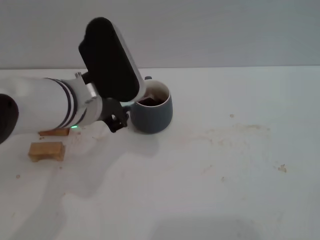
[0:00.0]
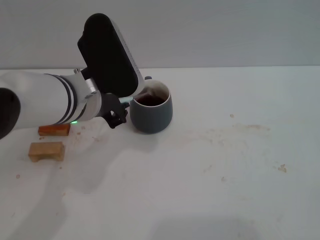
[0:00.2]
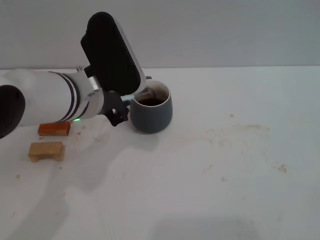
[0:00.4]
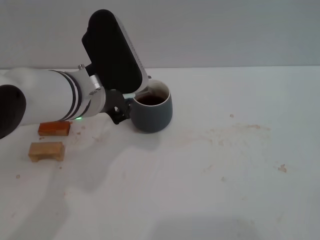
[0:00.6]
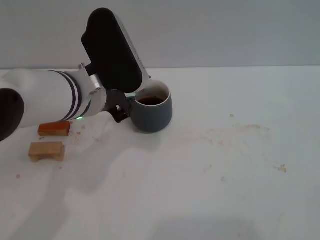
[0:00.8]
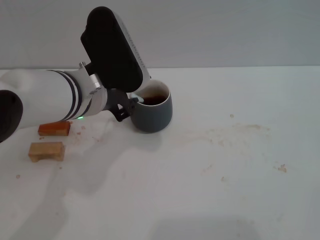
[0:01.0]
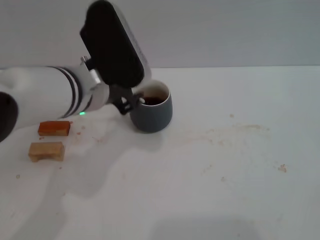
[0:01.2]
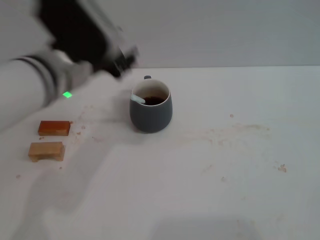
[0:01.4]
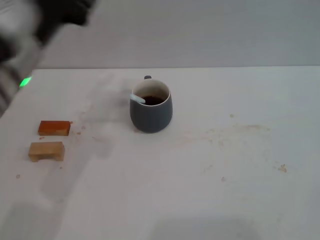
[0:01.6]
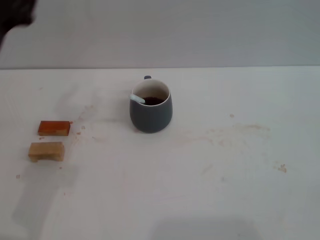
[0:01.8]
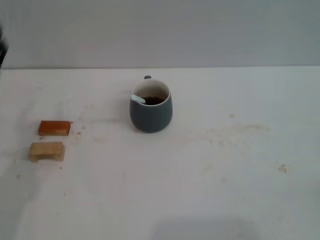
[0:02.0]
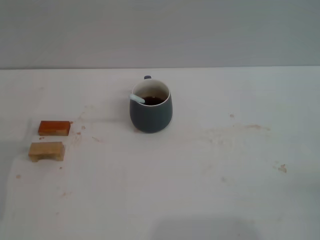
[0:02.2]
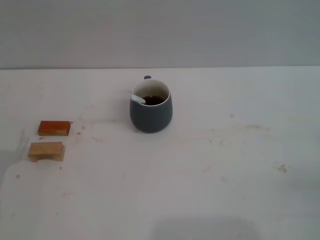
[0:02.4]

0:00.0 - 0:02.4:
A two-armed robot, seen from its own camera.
Task of the whole recording: Move the grey cup to the center, lift the blue spoon, stir it three times in the cup, and put the spoon into the cup.
0:00.0 - 0:01.2: The grippers move only a little.
0:01.2 - 0:02.4: The right gripper moves roughly 5 cm. The left gripper travels to the left, downward and backward by some 30 cm, and opens its fingers.

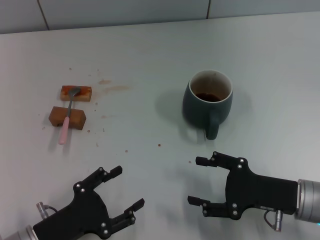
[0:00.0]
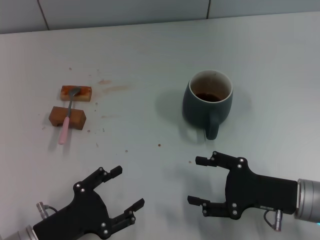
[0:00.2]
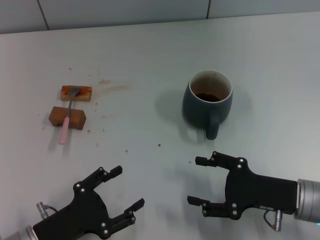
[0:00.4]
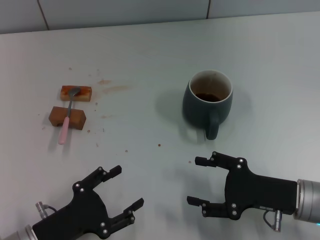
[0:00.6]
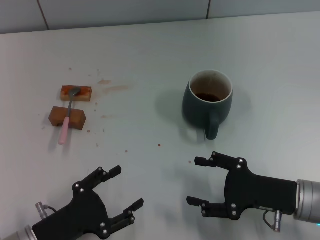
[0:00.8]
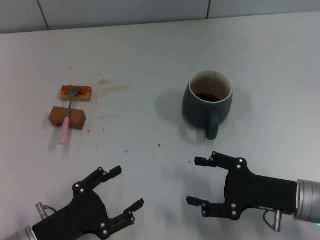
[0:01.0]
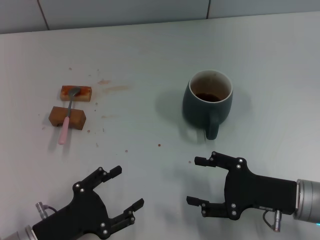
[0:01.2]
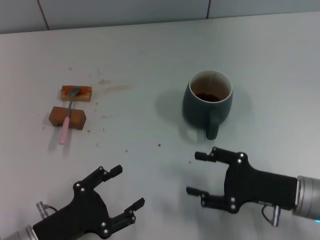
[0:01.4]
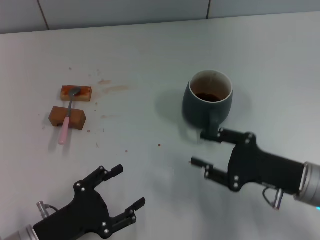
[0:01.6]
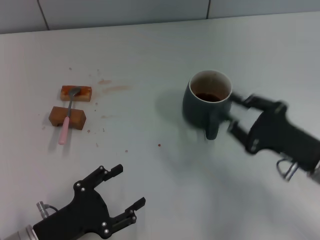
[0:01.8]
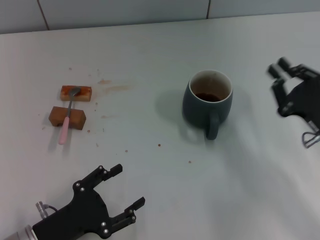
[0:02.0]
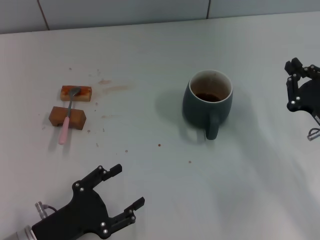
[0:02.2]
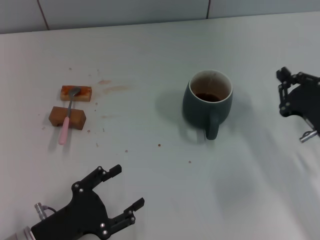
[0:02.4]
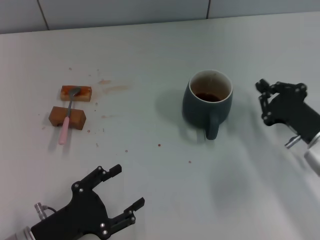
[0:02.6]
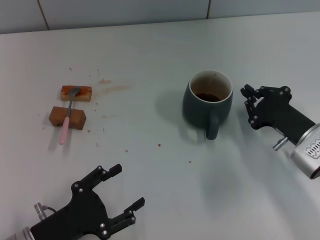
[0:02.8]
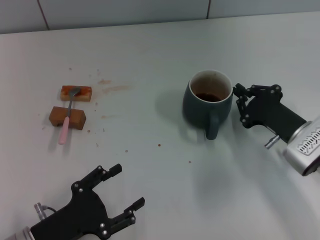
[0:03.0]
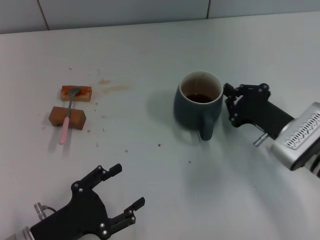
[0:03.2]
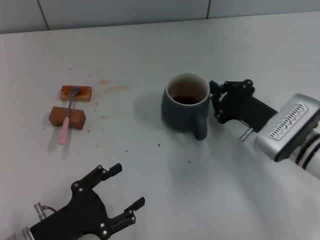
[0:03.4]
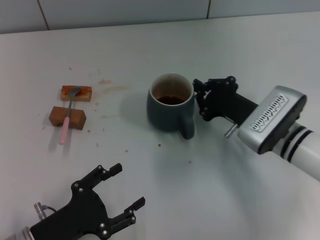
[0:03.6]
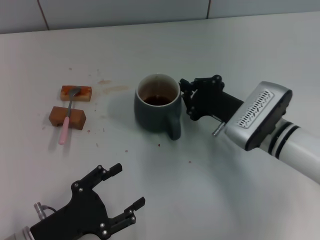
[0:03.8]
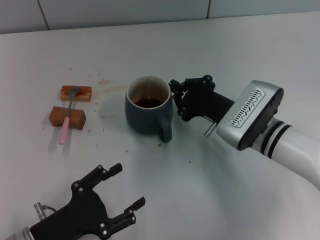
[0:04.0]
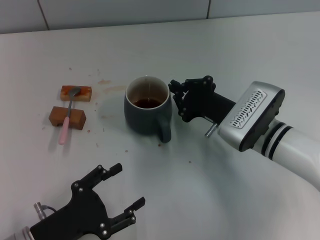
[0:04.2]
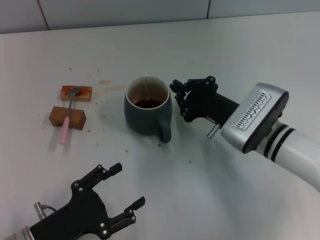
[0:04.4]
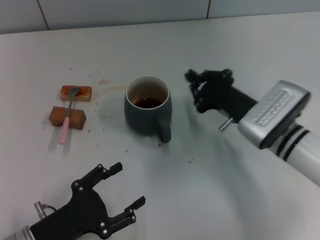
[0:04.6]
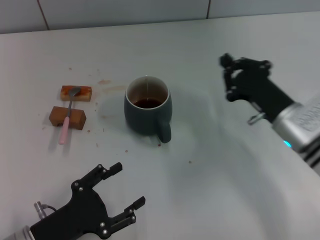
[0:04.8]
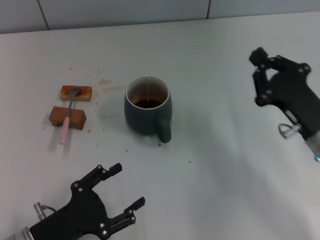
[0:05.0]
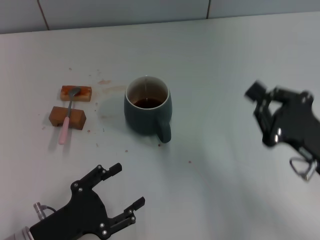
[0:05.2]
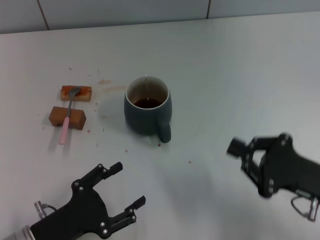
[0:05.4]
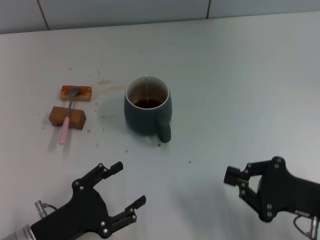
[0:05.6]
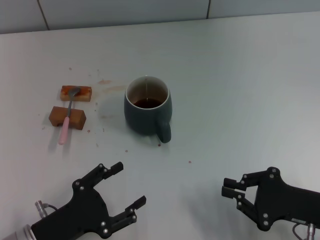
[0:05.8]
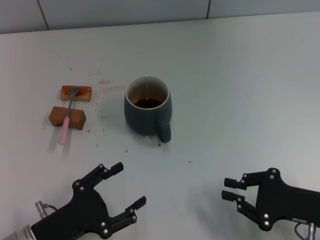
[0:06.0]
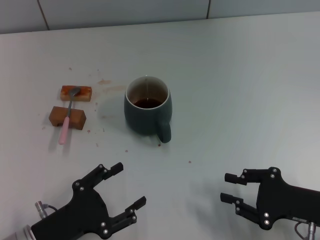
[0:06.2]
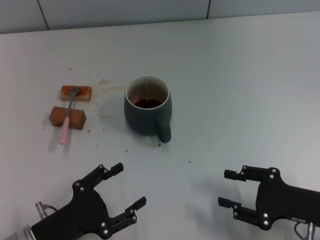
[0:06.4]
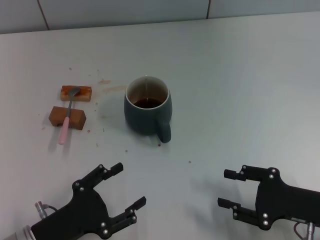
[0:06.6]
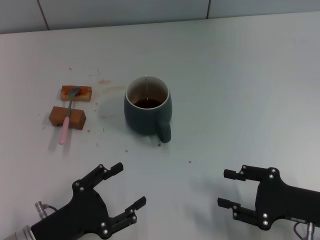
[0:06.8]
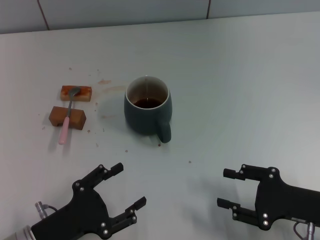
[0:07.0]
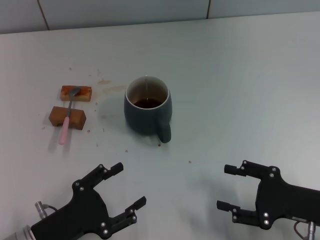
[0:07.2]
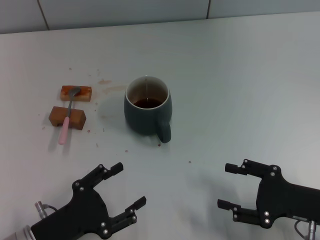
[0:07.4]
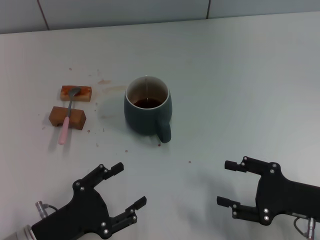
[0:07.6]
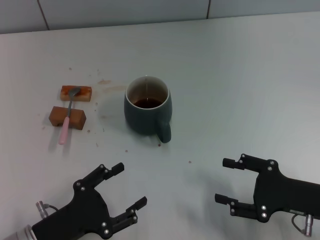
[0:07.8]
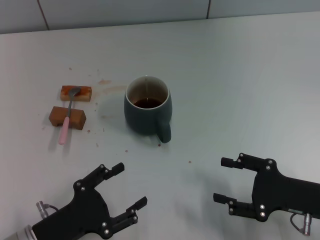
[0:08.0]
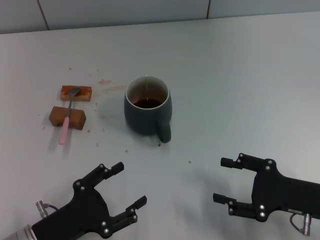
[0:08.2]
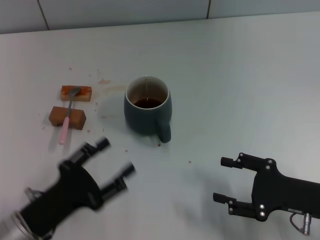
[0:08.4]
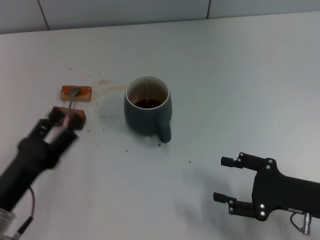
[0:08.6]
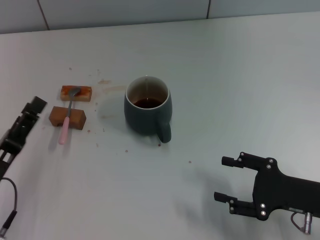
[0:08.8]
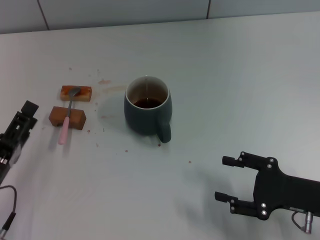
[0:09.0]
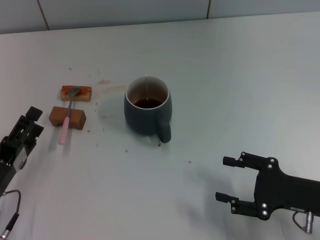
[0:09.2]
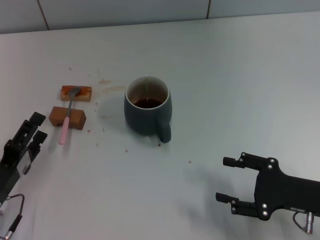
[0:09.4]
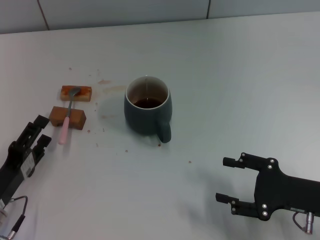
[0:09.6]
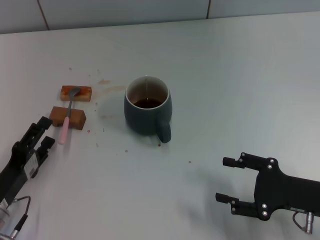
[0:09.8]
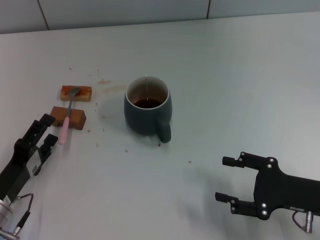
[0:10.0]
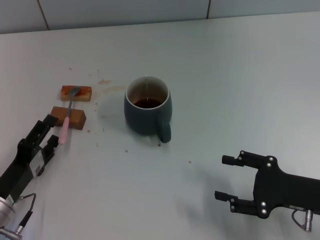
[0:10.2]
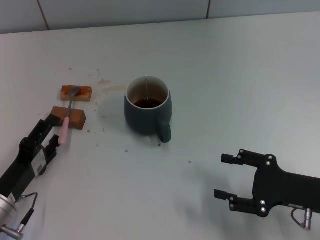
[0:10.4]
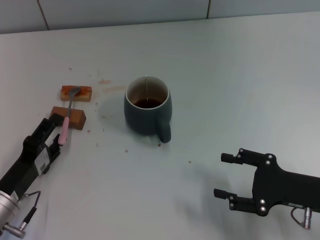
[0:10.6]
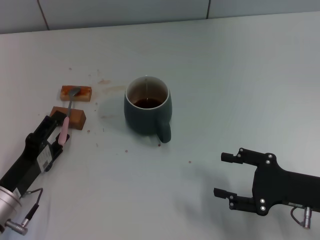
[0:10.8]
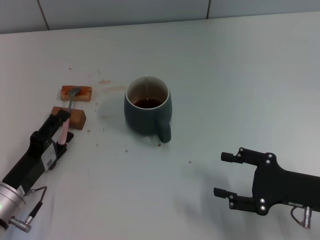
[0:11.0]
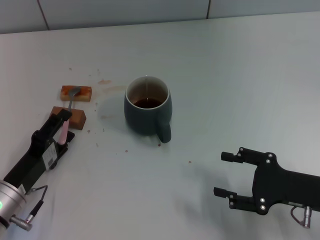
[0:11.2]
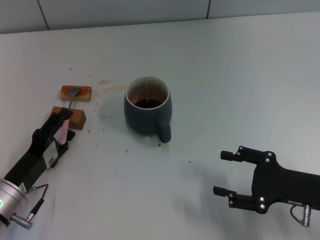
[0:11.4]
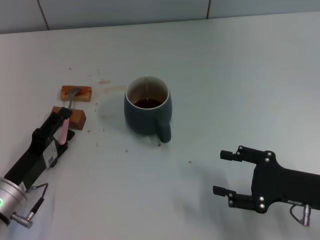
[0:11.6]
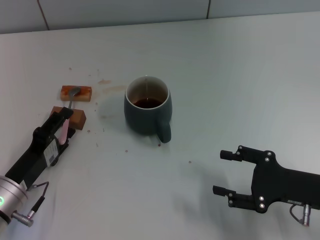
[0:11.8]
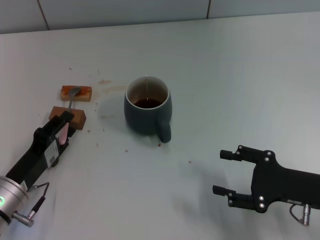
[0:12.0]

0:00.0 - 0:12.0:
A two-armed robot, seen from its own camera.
Task of the whole recording: Move the grey cup to the center, lift the pink spoon, stir it three times in the cup, and put the spoon into the cup.
Step, 0:00.0 - 0:05.0: Move the cup with coffee to the center of view with the right gripper.
0:00.0 - 0:01.6: There are only small adjustments of the grippers.
0:01.6 - 0:03.0: The right gripper moves forward, some 5 cm, and closes.
0:03.0 - 0:04.4: The right gripper shifts approximately 10 cm to the left.
0:04.4 - 0:06.0: The right gripper is displaced backward and to the right by approximately 15 cm.
0:06.0 - 0:07.6: The right gripper opens its fingers.
0:07.6 - 0:09.0: The left gripper moves to the left, approximately 5 cm.
0:10.4 - 0:12.0: There are only small adjustments of the grippers.

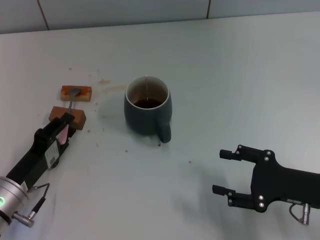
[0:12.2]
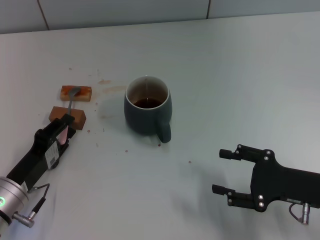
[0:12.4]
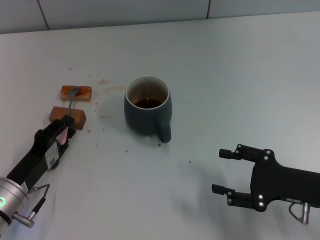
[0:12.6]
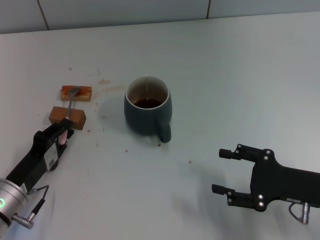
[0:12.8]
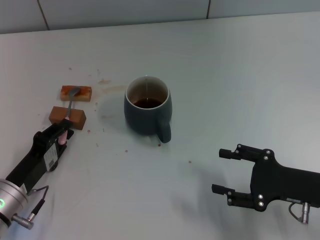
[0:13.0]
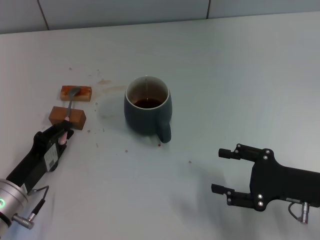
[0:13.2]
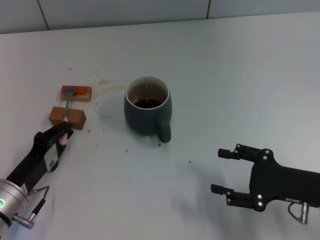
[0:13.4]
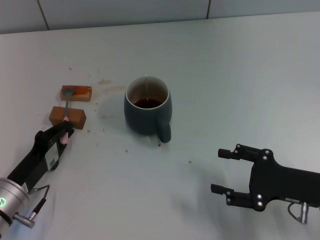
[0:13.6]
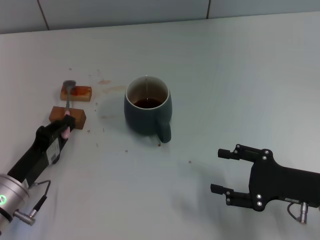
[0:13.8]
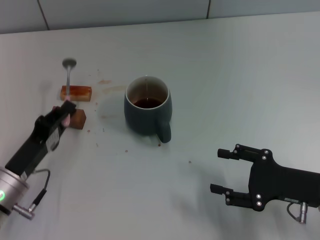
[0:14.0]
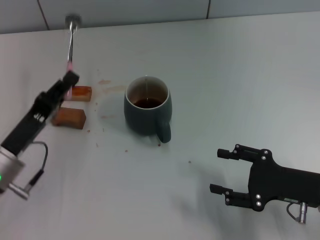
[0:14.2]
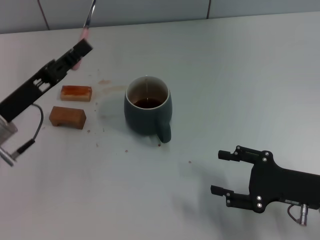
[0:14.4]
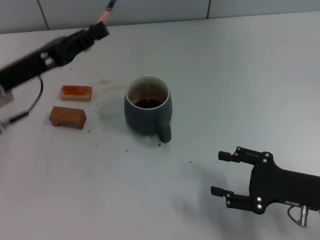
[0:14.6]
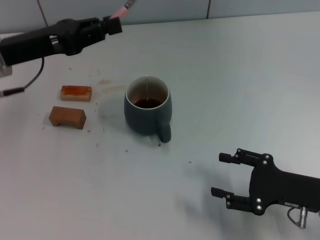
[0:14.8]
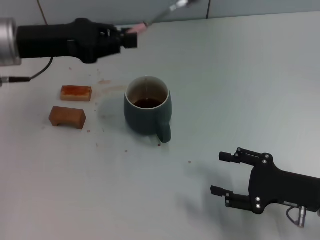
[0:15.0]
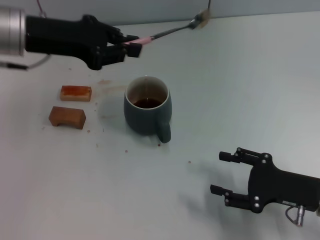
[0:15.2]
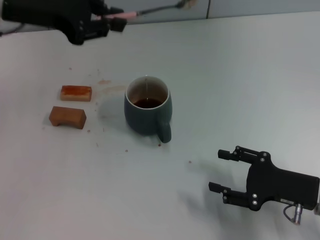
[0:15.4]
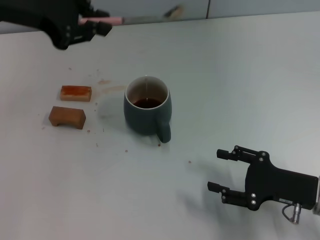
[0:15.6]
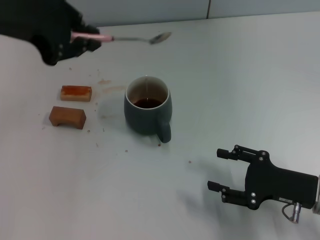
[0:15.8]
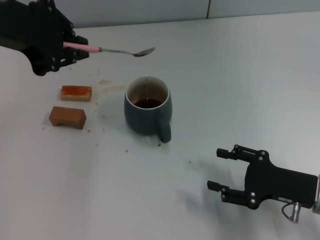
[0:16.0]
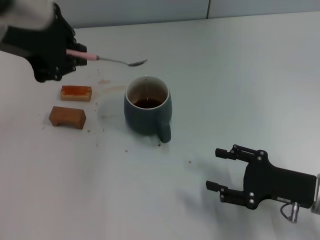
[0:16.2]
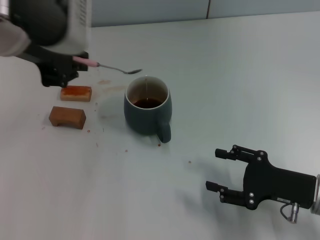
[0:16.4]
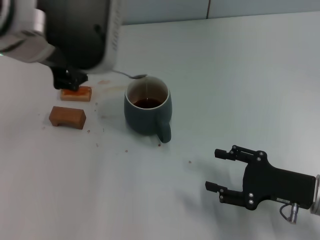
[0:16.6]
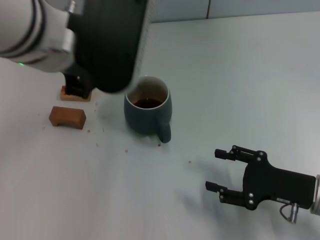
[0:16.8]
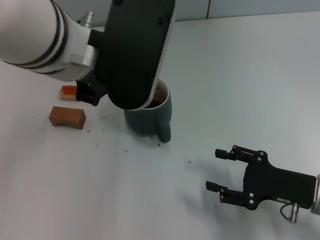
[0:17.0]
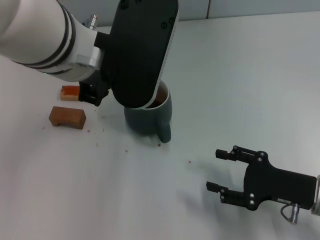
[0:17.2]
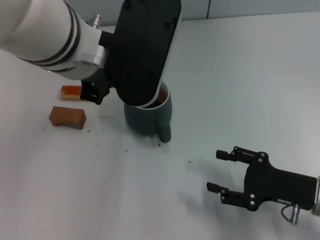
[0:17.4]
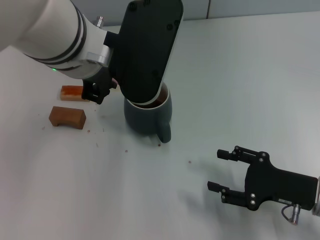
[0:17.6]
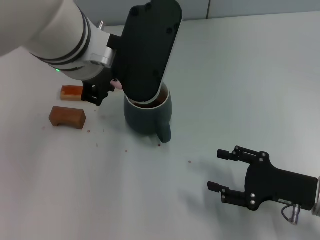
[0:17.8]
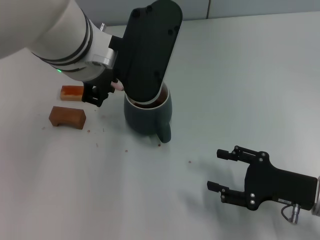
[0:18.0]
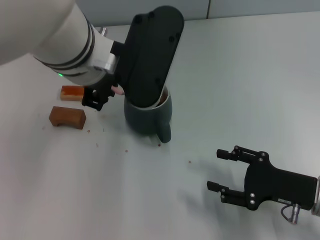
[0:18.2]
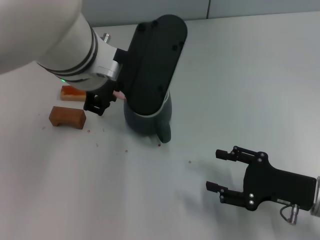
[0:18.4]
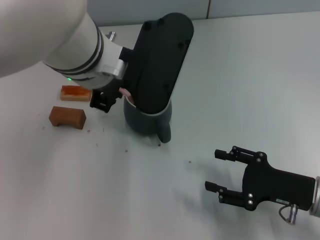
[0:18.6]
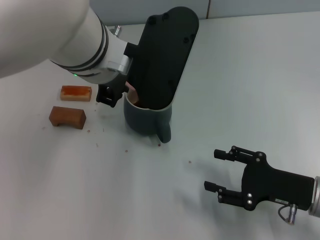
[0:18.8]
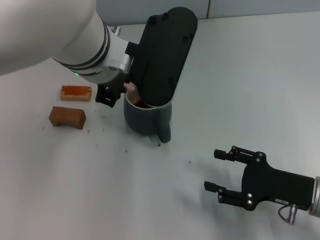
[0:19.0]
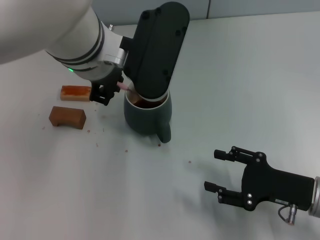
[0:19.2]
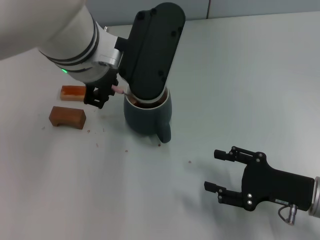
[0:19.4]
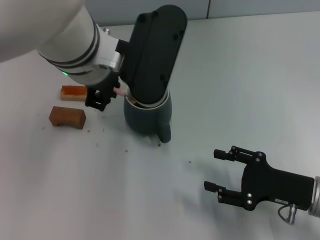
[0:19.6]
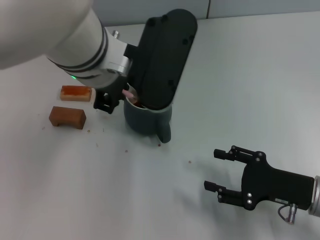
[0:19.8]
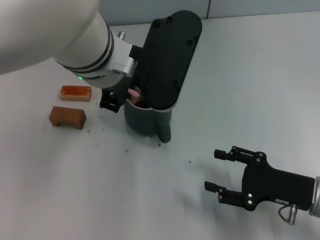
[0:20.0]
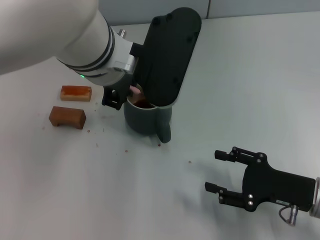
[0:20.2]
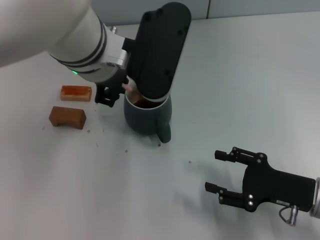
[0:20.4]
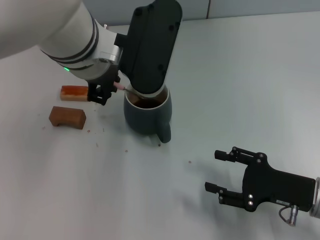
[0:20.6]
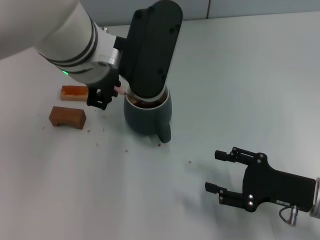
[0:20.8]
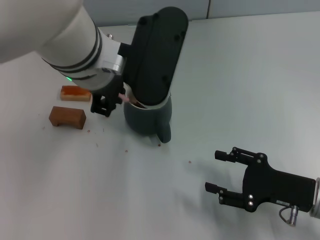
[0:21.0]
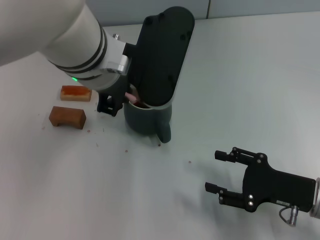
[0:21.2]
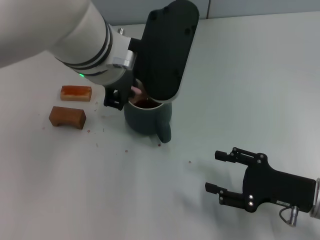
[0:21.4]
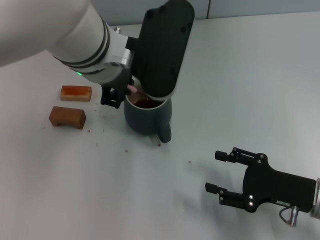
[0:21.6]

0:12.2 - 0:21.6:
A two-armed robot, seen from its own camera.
Task of the whole recording: Move the grey cup to the center, lift the pink spoon, stir it three times in the cup, and put the spoon into the cup.
0:12.2 - 0:13.8: The left gripper closes its fingers.
0:13.8 - 0:15.4: The left gripper is displaced upward and forward by roughly 30 cm.
0:15.4 - 0:17.0: The left gripper travels to the right and backward by approximately 15 cm.
0:17.0 - 0:18.4: There are only small adjustments of the grippers.
0:18.4 - 0:21.6: There are only small adjustments of the grippers.
